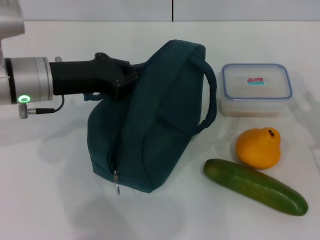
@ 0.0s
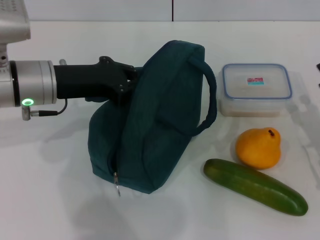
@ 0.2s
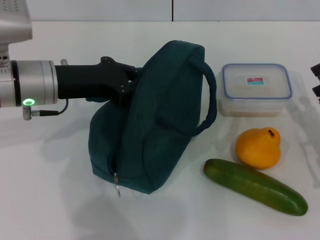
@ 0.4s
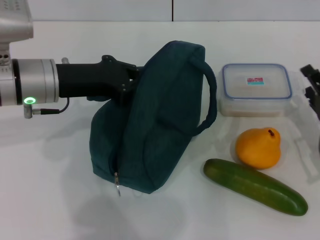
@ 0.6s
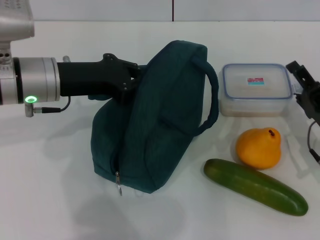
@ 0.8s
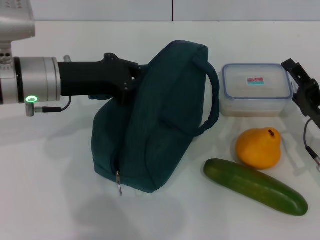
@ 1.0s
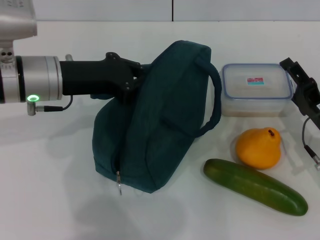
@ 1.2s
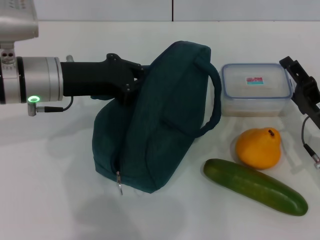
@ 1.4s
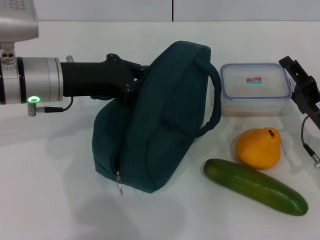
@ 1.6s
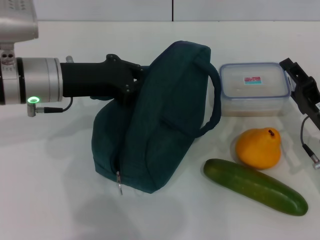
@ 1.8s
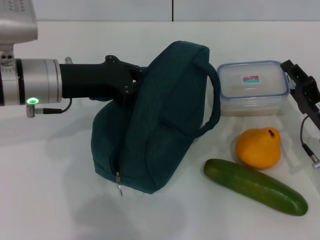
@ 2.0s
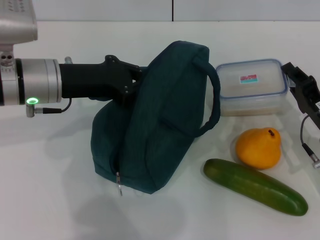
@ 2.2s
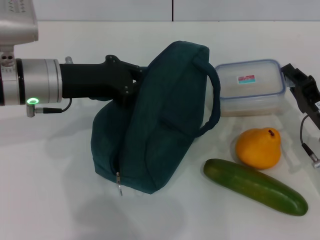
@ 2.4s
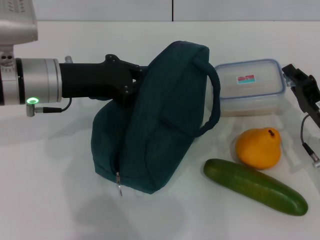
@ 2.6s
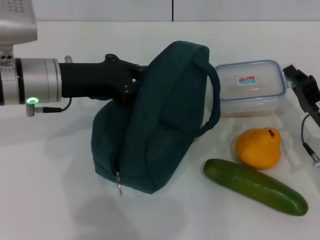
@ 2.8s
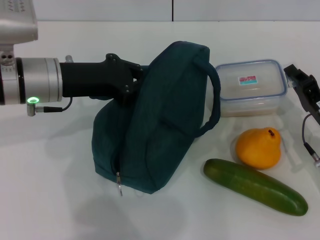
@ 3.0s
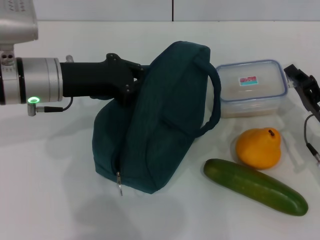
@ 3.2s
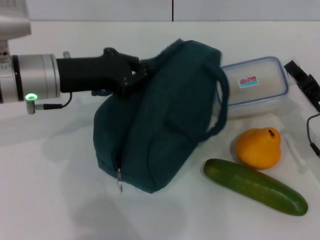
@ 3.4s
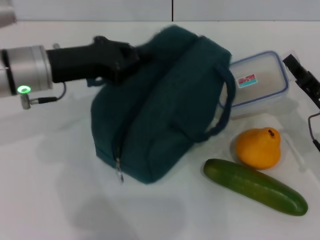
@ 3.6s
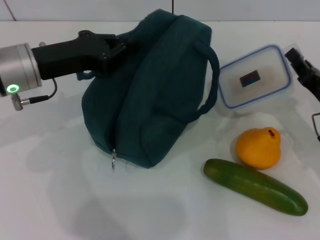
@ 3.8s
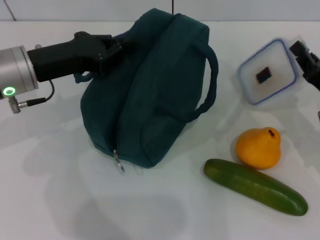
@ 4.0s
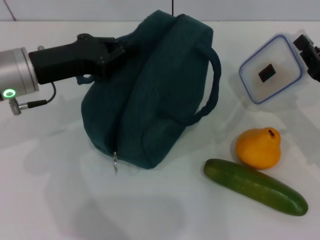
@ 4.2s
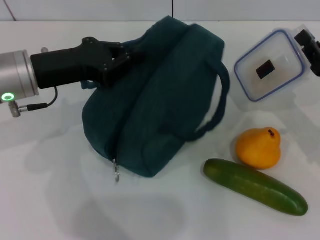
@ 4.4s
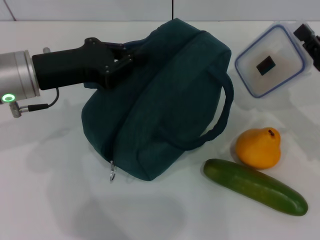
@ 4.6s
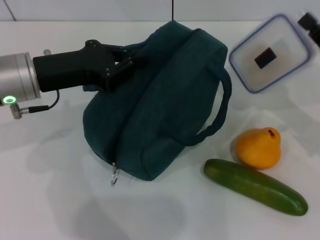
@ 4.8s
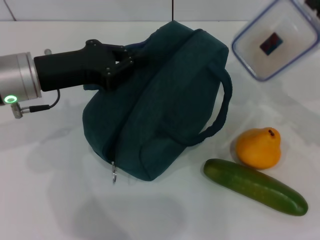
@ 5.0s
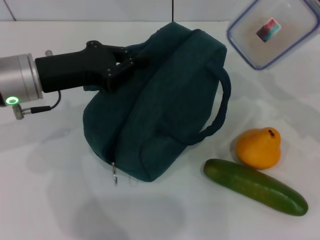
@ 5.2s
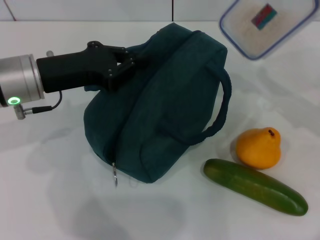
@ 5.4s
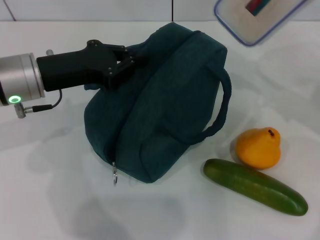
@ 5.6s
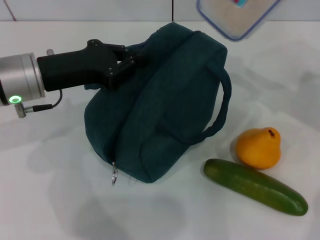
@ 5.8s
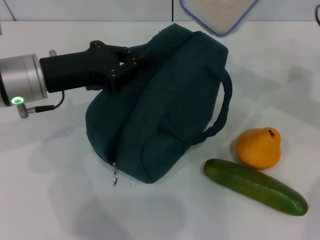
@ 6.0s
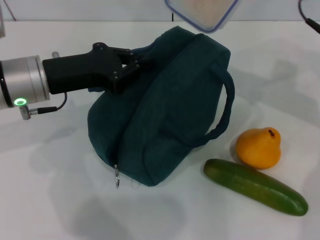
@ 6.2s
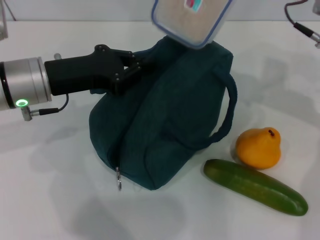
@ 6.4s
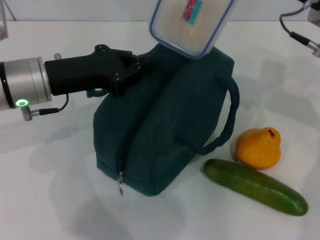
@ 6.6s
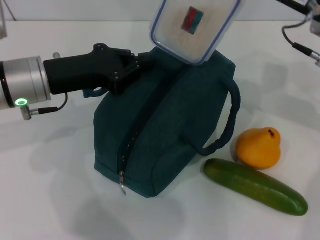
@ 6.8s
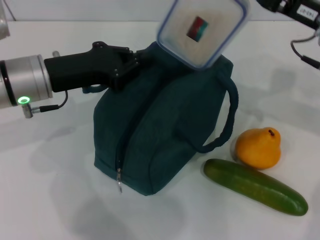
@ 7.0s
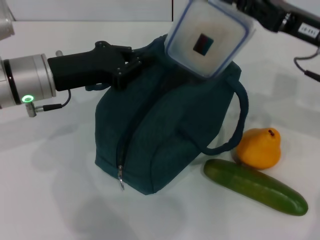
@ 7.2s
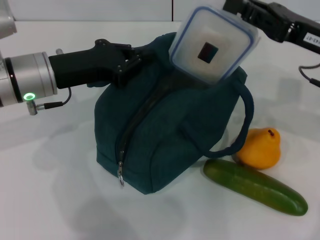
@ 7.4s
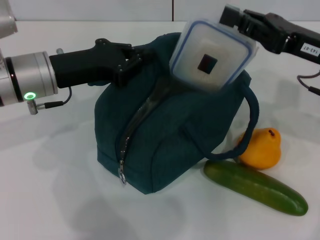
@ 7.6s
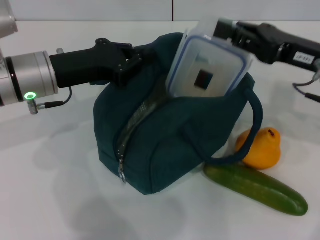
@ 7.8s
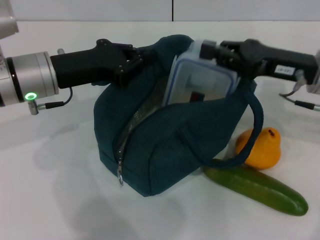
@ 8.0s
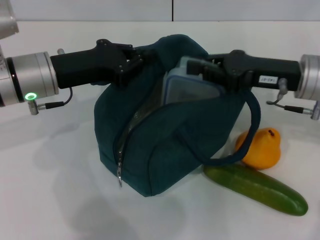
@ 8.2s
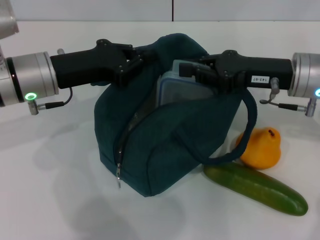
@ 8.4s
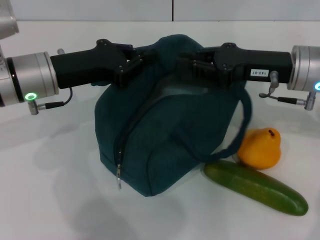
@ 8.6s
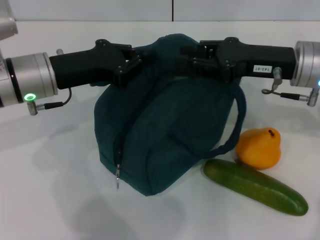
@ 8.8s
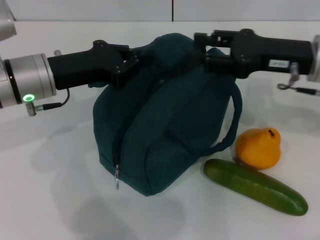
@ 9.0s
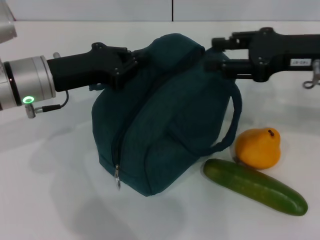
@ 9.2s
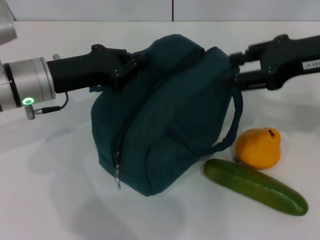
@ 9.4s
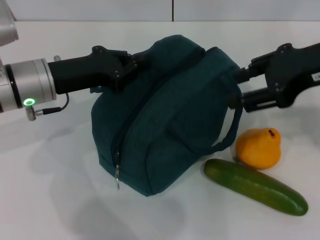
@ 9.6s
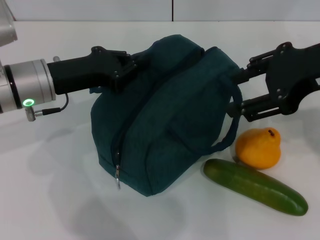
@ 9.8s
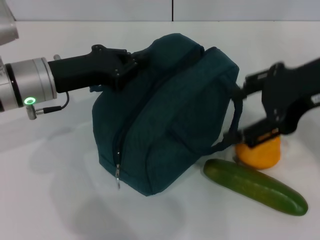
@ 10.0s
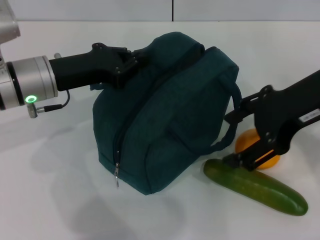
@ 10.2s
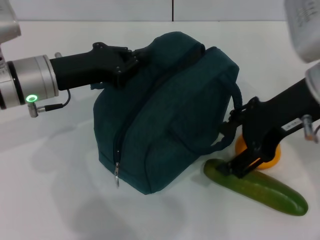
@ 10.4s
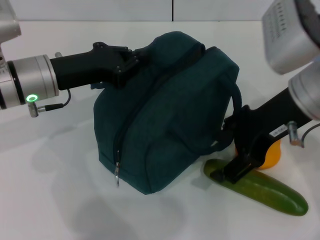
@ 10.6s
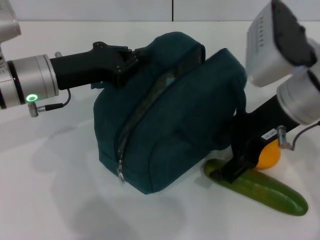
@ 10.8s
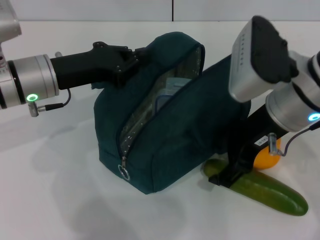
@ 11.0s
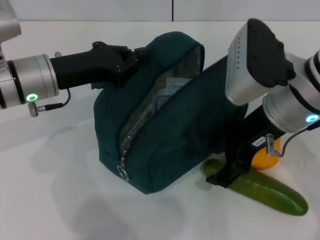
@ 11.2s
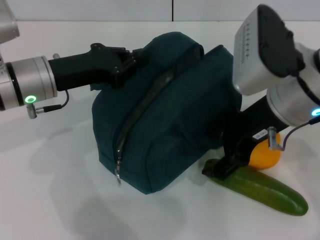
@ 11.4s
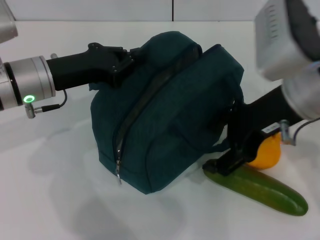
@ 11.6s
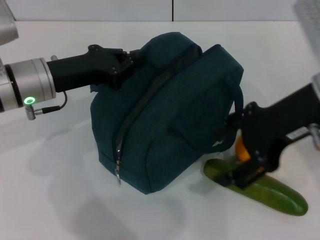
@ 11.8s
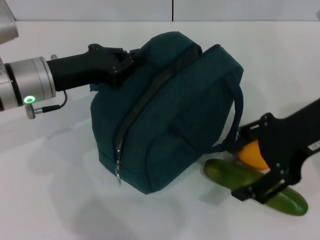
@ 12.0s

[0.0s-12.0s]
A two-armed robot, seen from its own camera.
Step, 0.2s to 3.2s: Pick up the lunch box with your right hand.
Step, 3.4s to 8.8s: Place the lunch box into the lunch bag with your right hand.
0.0s to 1.6s: The right gripper moves approximately 5 cm.
1.6s to 3.0s: The right gripper closes up.
3.0s to 4.4s: The right gripper ends up roughly 5 cm from where it was.
4.4s to 6.0s: The right gripper heads upward and forward, covering about 15 cm.
7.6s to 9.0s: There are only small adjustments of the grippers.
9.0s to 10.4s: The right gripper shifts approximately 10 cm upward and backward, and opens.
10.4s to 12.0s: There are only small adjustments of the grippers.

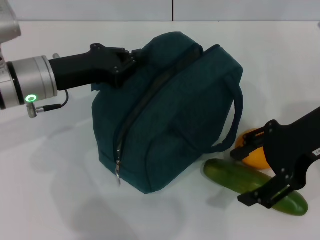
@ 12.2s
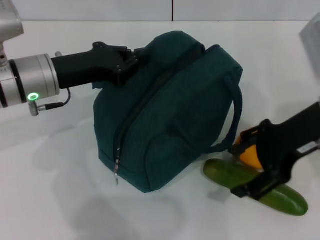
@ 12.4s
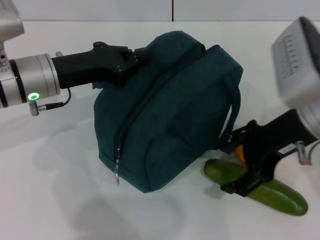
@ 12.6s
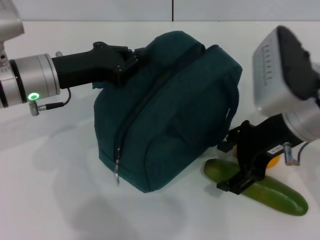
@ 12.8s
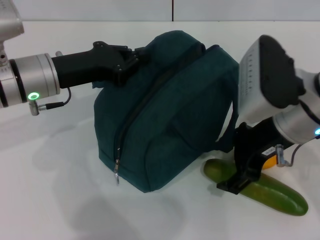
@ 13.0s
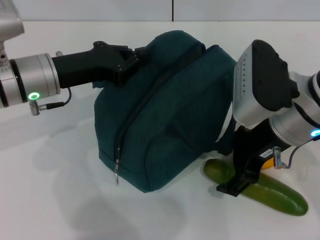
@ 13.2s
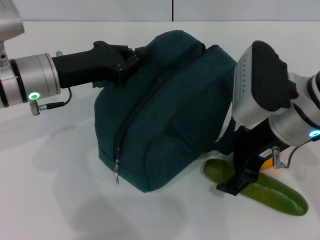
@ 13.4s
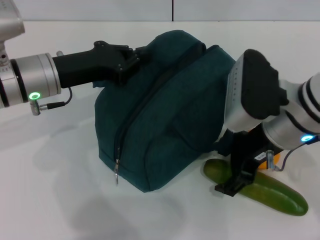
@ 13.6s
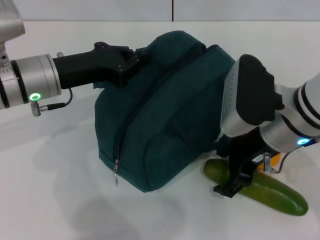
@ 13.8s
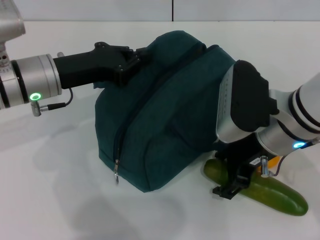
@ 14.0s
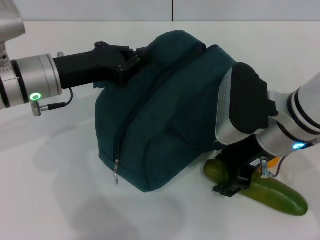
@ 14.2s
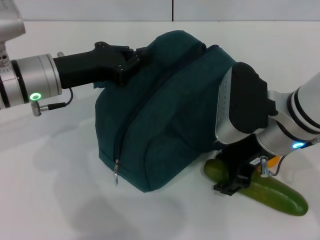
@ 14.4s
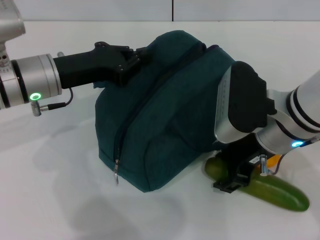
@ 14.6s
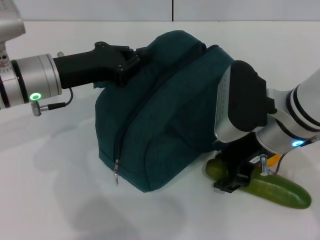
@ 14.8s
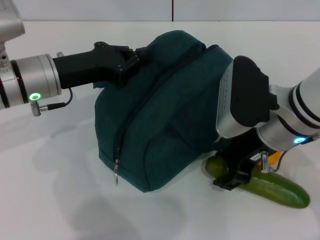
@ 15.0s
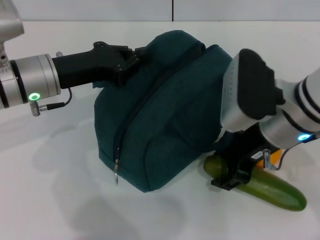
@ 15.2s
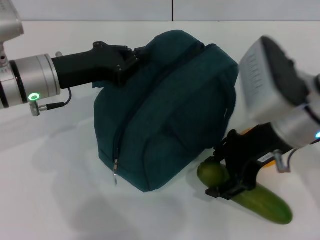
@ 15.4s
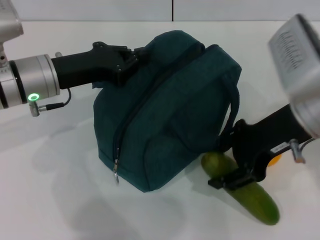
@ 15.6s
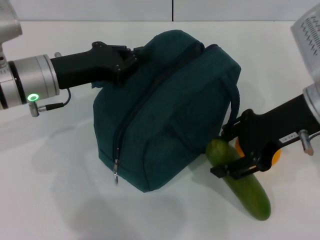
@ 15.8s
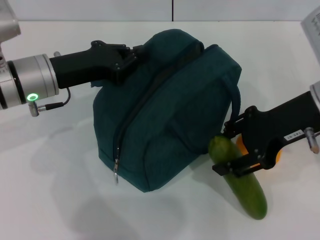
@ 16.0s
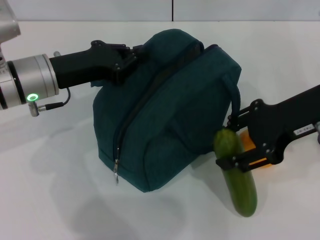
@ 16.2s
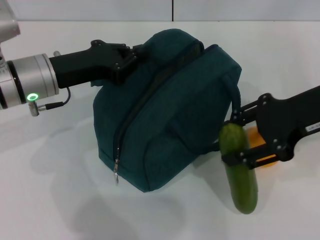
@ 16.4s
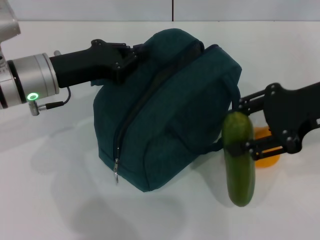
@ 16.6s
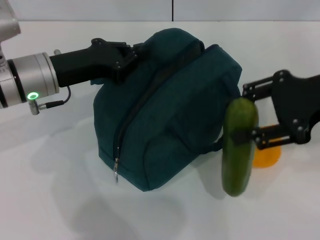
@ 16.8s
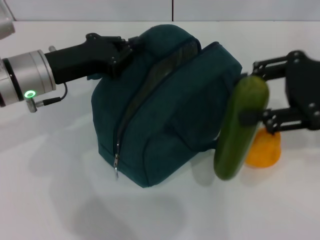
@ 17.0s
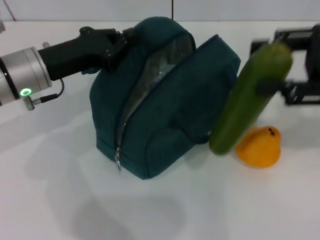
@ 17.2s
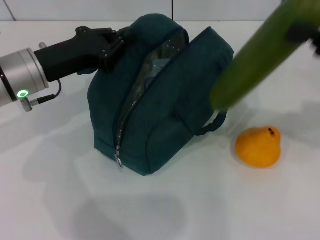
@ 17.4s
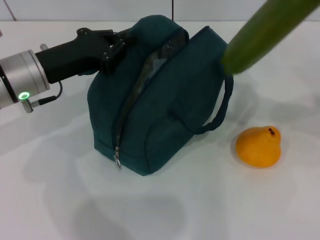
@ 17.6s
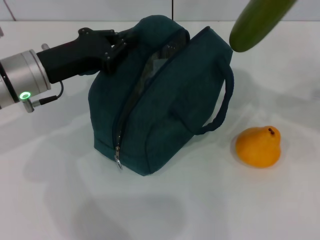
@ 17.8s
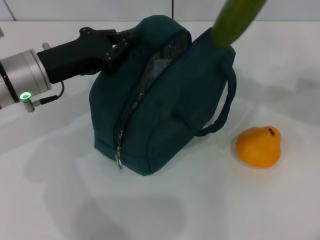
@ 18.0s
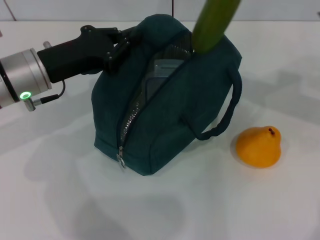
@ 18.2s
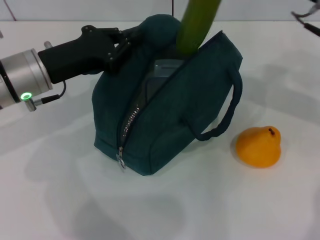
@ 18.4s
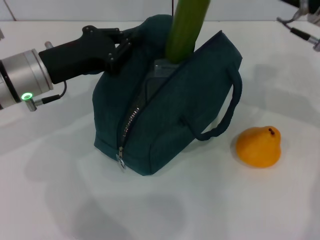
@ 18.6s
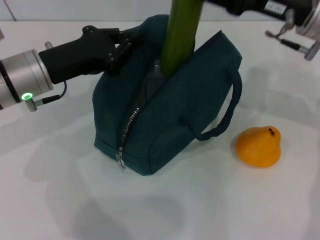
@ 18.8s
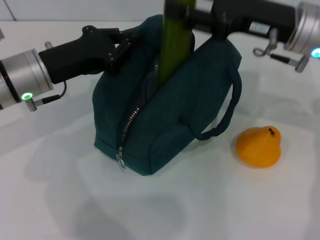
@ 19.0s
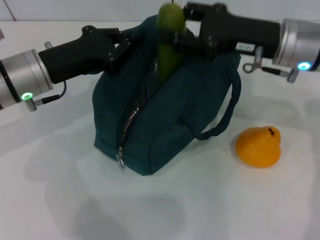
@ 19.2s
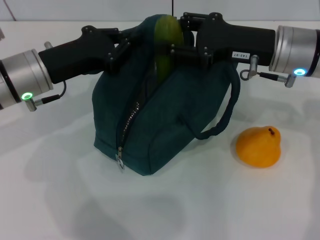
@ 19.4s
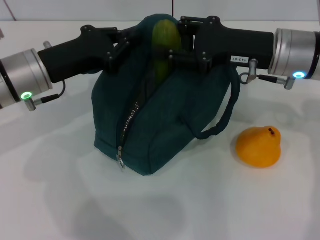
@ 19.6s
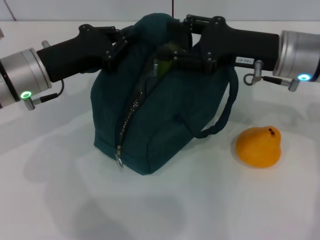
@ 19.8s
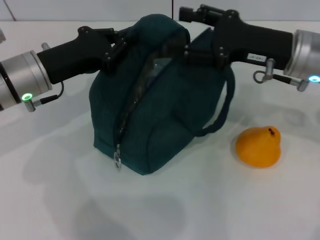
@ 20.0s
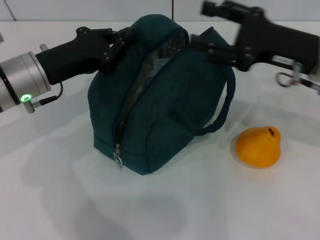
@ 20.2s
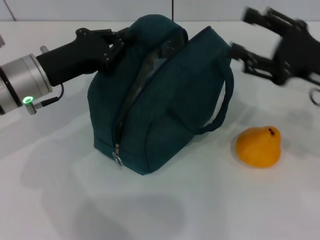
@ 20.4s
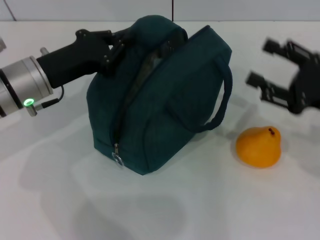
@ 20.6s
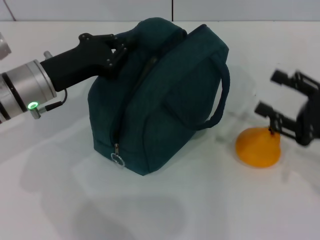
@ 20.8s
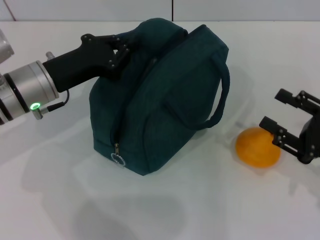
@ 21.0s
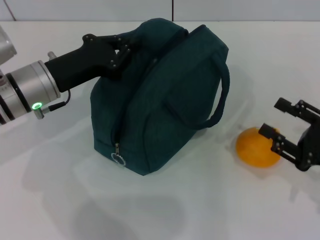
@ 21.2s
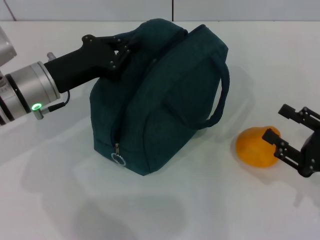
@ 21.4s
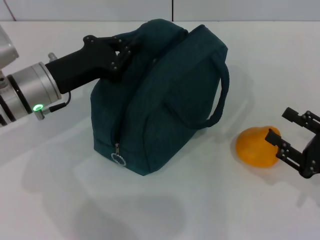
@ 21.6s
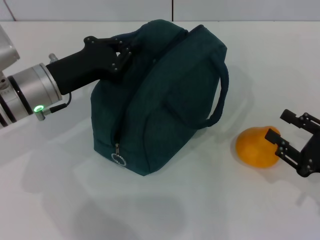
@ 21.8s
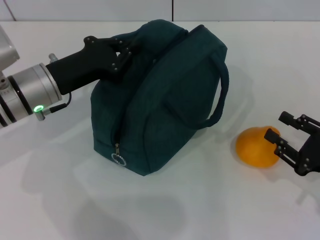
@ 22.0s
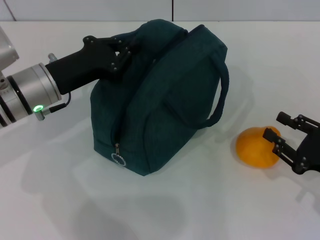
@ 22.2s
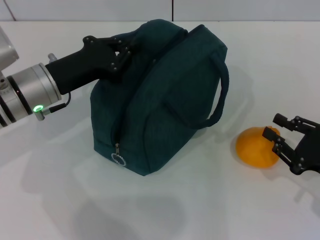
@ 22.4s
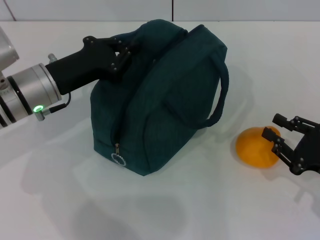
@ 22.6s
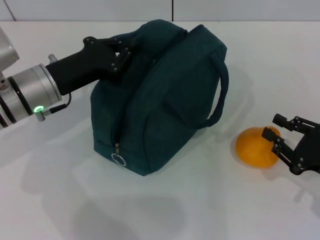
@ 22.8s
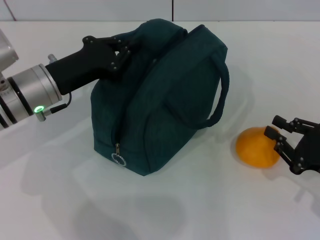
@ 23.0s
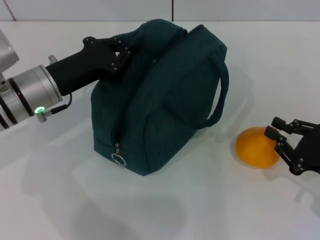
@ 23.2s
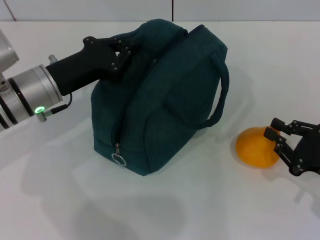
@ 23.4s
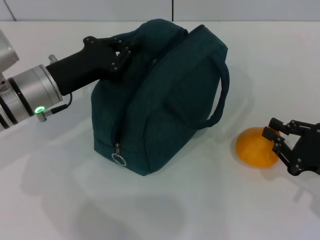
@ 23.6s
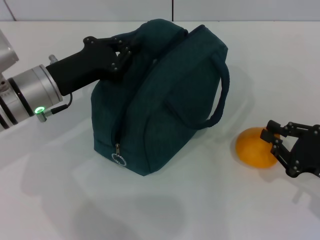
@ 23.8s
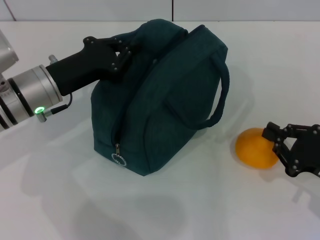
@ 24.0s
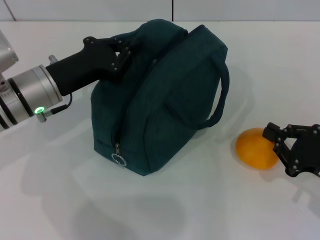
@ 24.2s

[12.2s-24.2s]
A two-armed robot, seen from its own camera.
Step, 12.2s to 14.8s: Pick up the cucumber with your right hand.
Step, 15.0s to 20.0s: Put the cucumber into the lunch bag with your right hand.
Step, 20.2s to 24.0s: Grab the pear with your right hand.
12.2s to 13.8s: The right gripper moves downward and to the left, approximately 10 cm.
13.8s to 15.2s: The two grippers keep their place.
15.2s to 16.6s: The right gripper goes approximately 10 cm to the right and upward.
16.6s to 18.2s: The right gripper is displaced forward by roughly 5 cm.
18.2s to 19.8s: The right gripper shifts roughly 10 cm to the left and downward.
19.8s to 21.2s: The right gripper travels backward, to the right and downward by some 20 cm.
21.2s to 22.6s: The grippers make only small movements.
22.6s to 24.2s: The two grippers keep their place.
